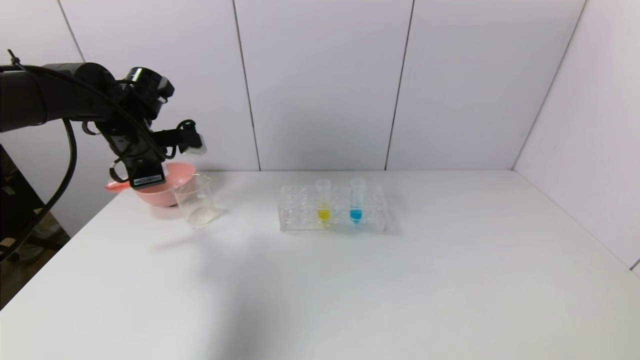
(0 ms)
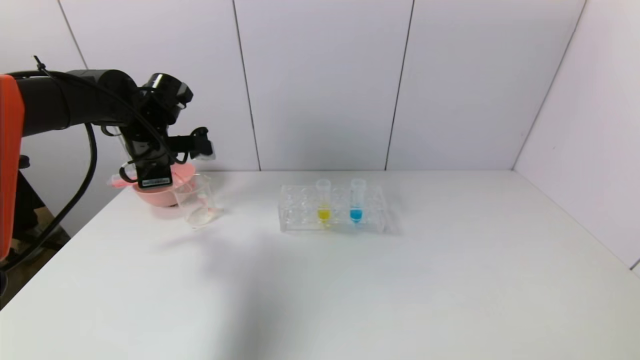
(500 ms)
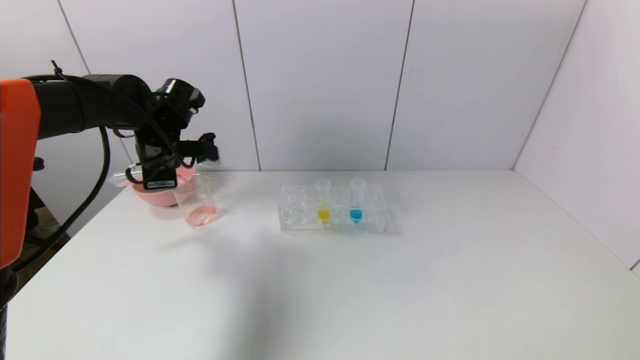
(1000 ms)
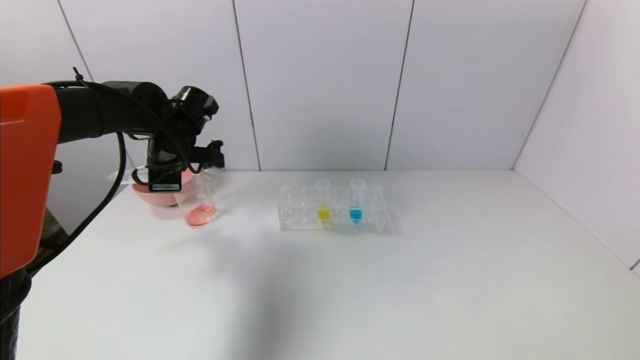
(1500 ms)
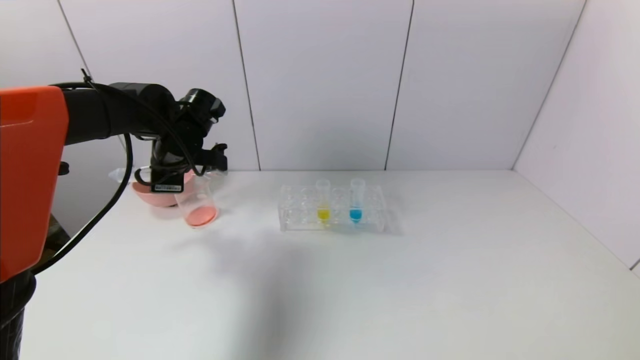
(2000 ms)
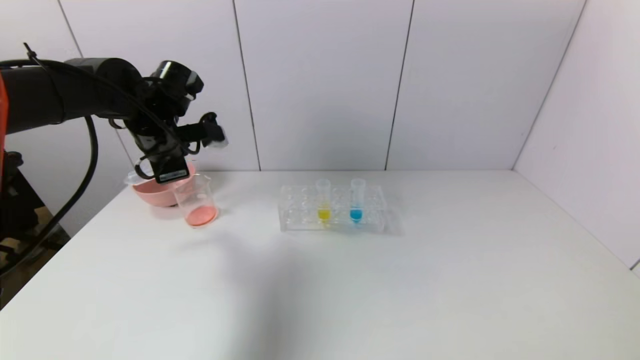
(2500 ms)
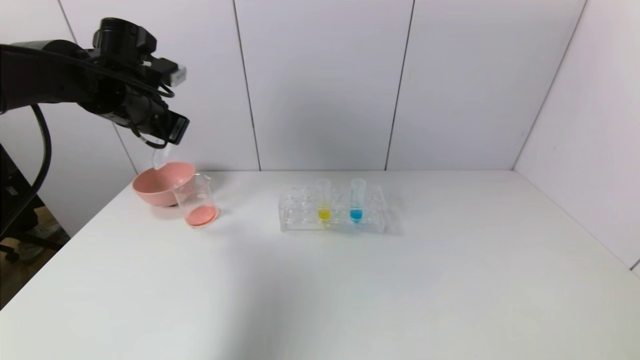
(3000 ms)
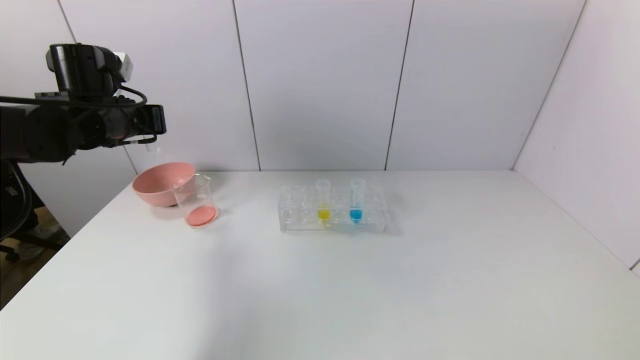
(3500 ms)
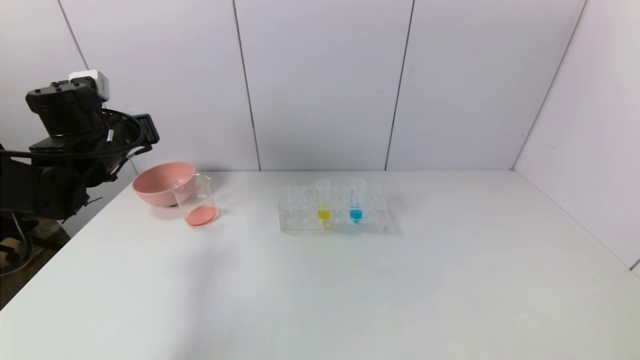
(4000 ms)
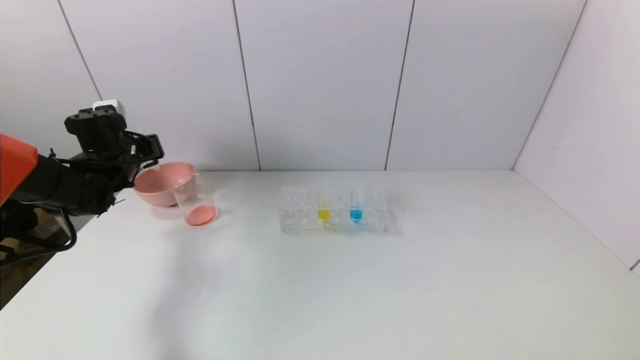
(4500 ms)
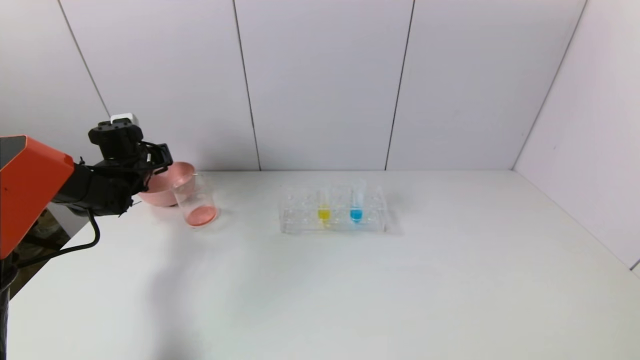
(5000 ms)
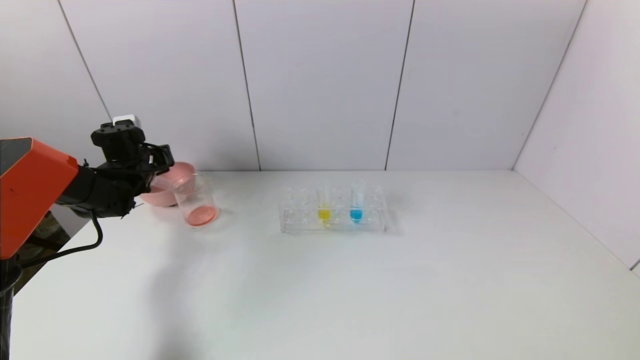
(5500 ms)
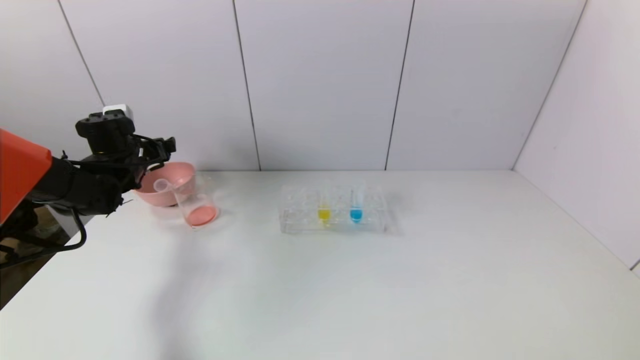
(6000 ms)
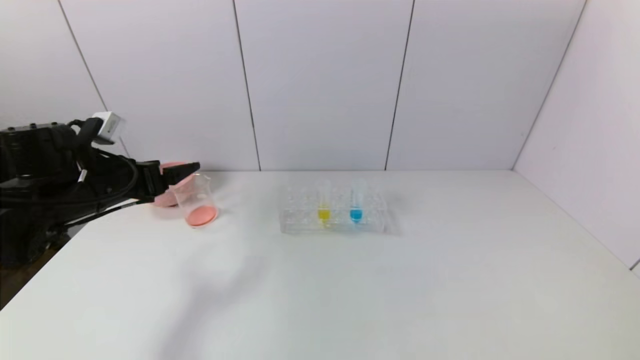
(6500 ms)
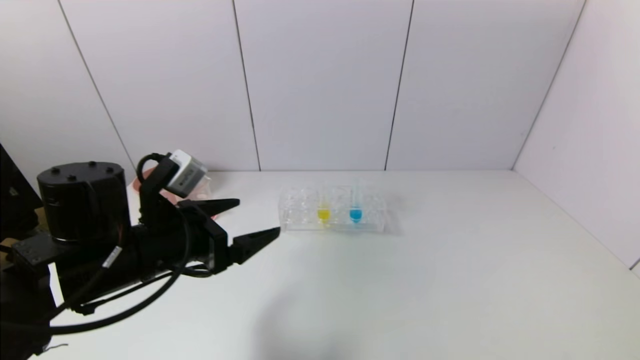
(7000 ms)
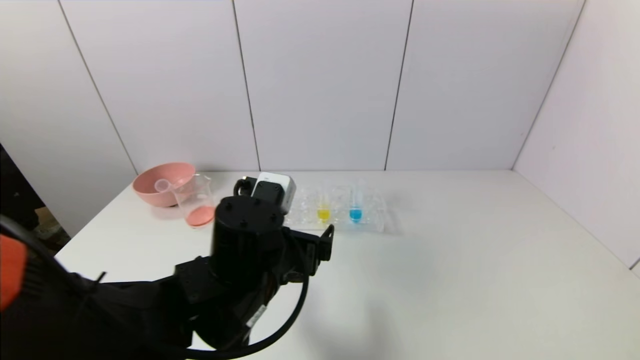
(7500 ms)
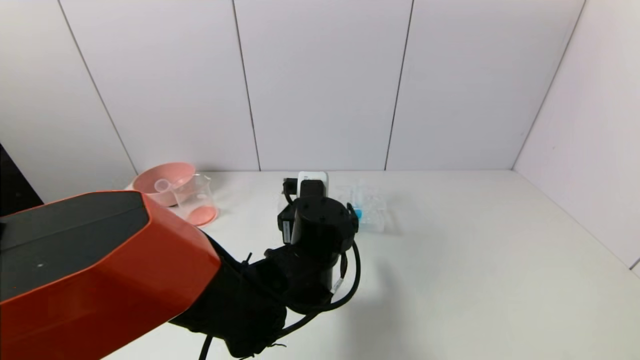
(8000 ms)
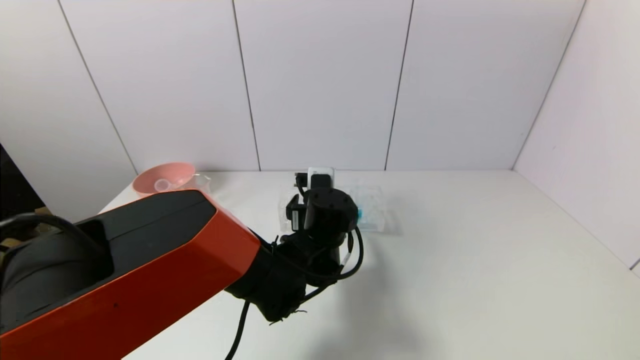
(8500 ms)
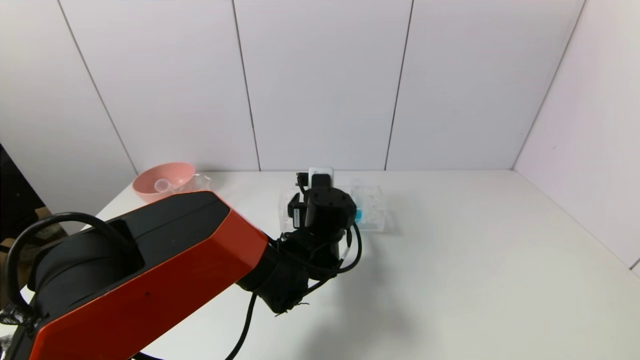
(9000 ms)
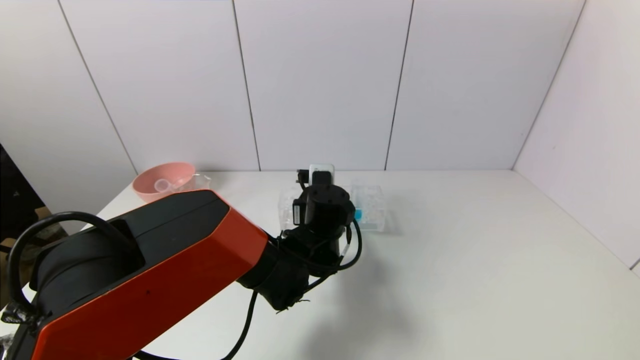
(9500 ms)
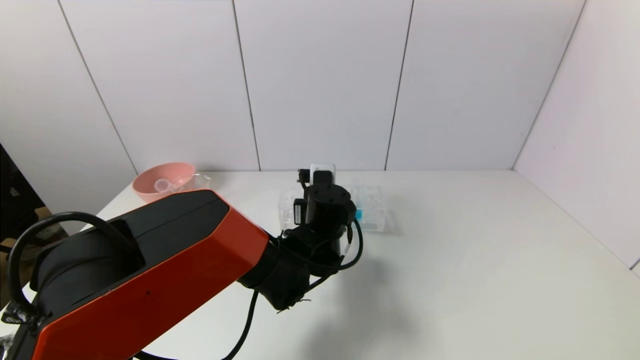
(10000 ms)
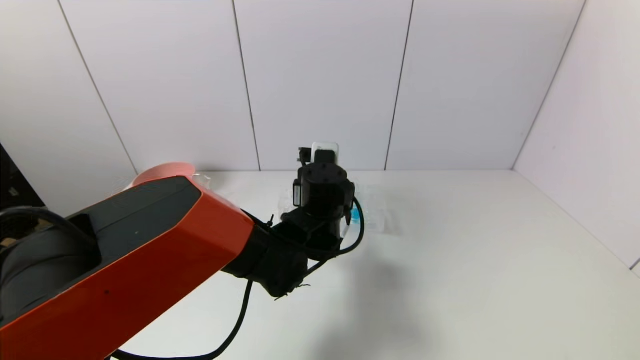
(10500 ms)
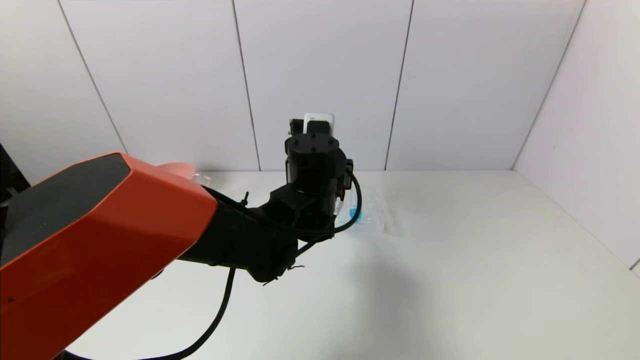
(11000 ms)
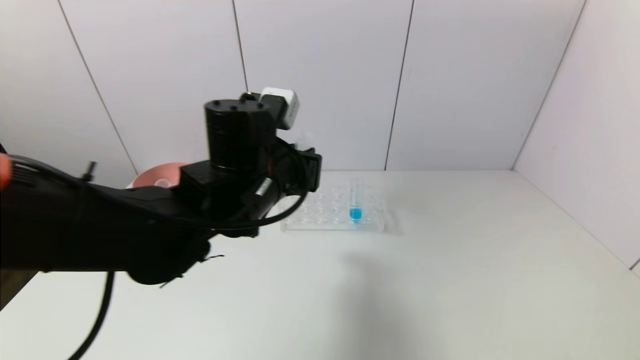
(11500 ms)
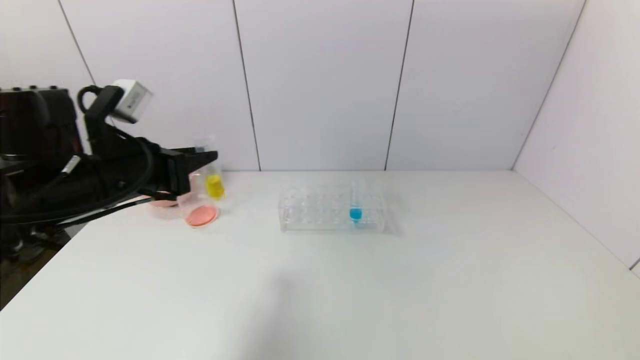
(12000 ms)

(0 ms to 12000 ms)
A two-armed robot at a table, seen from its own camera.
Task of the whole recording: pick up the test tube with yellow pigment and the test tube with red pigment by grippers and pour them into the beaker.
Step, 0 ms - 2000 ms: Pour the red reagent into the graduated cylinder with the left gripper.
Step, 2500 ms - 5500 ms: Place the test tube into the pink bowl with the left gripper.
Step, 6000 ms - 10000 ms: Grasp the yellow reagent with the left gripper.
0 ms - 2000 ms: The left gripper heads to the right, covering some 5 cm.
2000 ms - 4000 ms: The left gripper travels to the left by about 10 cm.
4000 ms - 6000 ms: The left gripper goes about 10 cm forward and downward, and opens its fingers.
6000 ms - 8000 ms: The left gripper is displaced to the right and backward by about 40 cm.
8000 ms - 10000 ms: The left gripper heads forward, covering approximately 5 cm, and closes its fingers.
10000 ms - 12000 ms: The left gripper travels to the left and upward by about 30 cm.

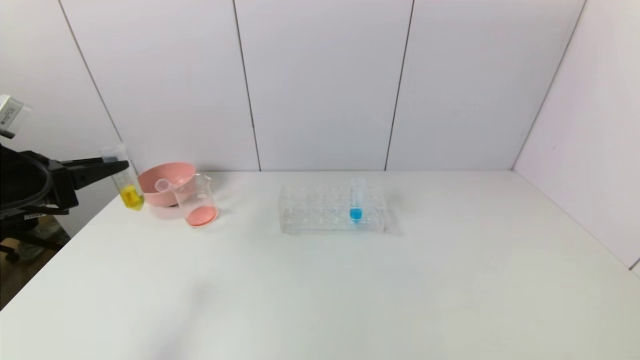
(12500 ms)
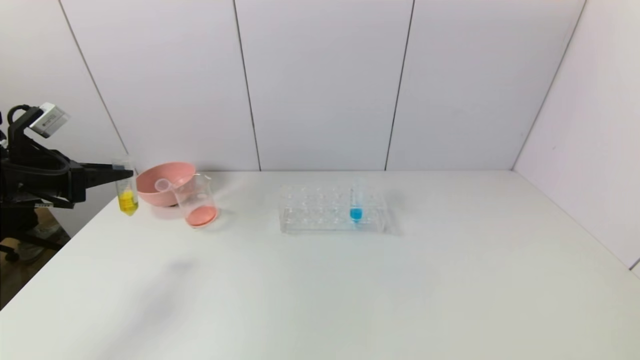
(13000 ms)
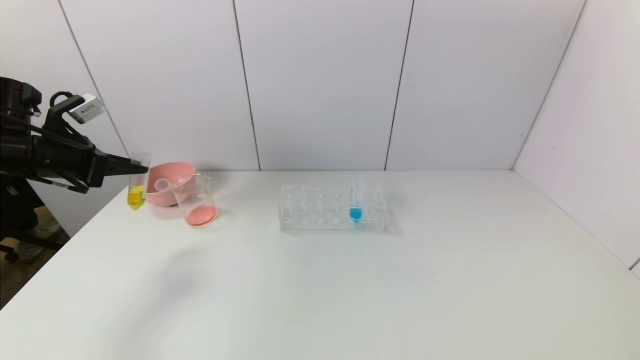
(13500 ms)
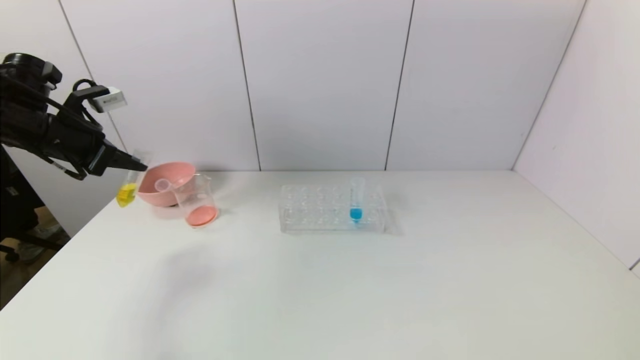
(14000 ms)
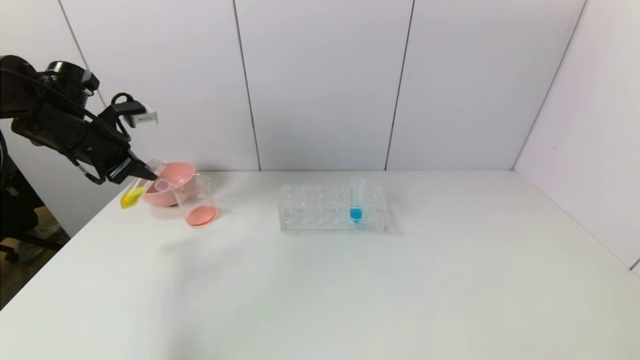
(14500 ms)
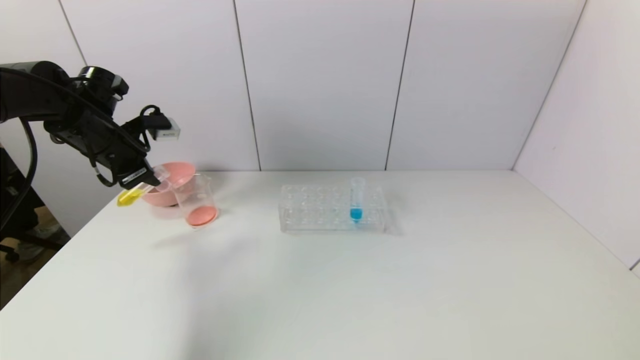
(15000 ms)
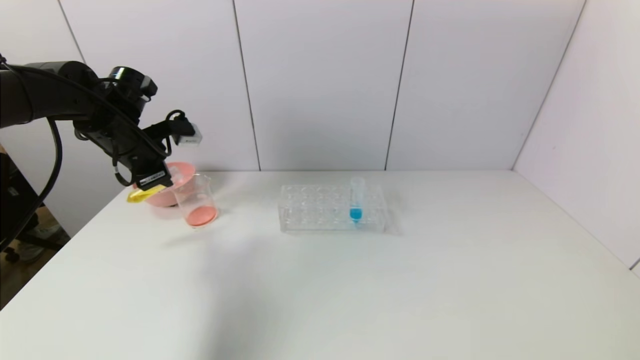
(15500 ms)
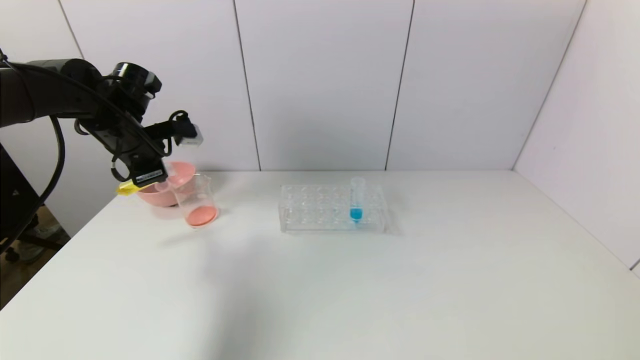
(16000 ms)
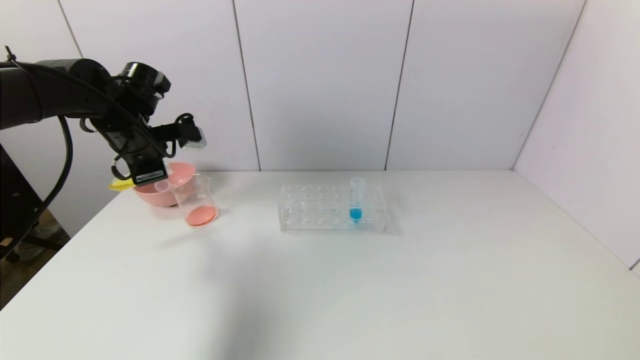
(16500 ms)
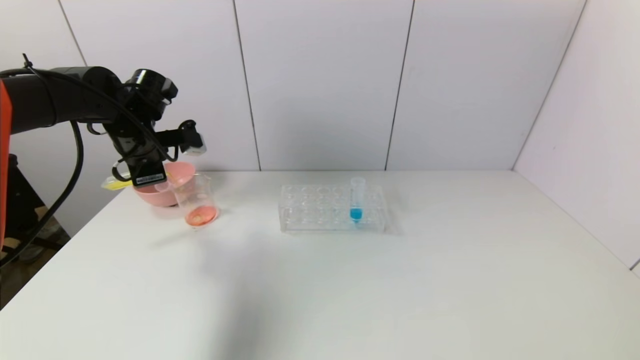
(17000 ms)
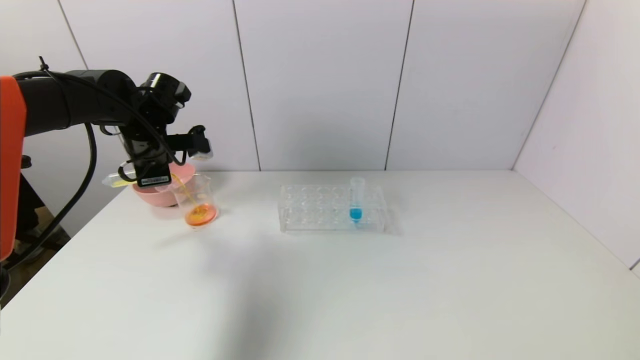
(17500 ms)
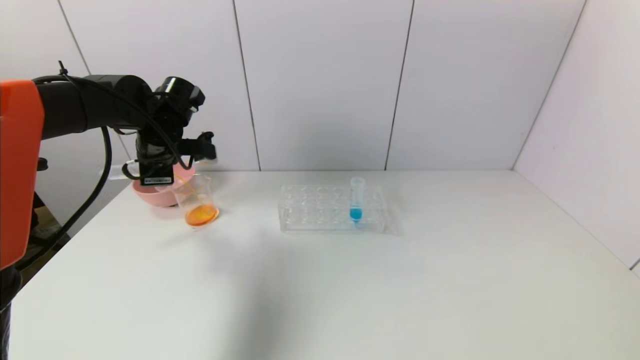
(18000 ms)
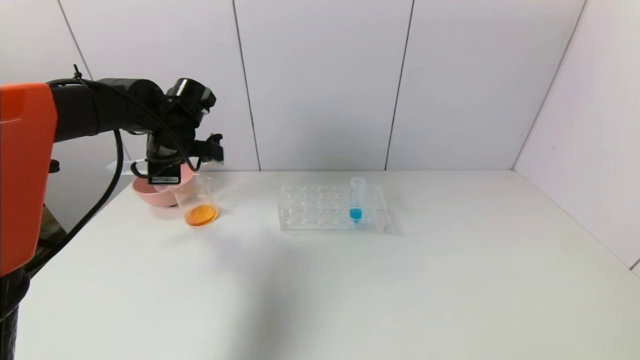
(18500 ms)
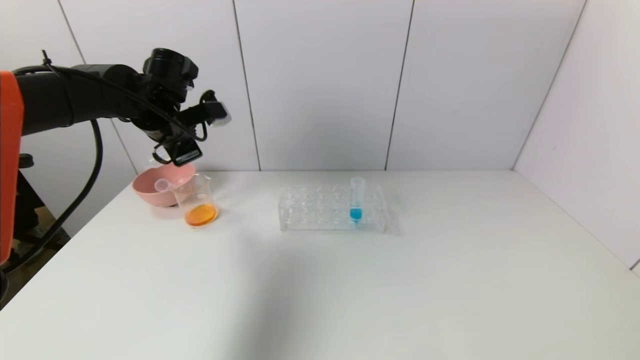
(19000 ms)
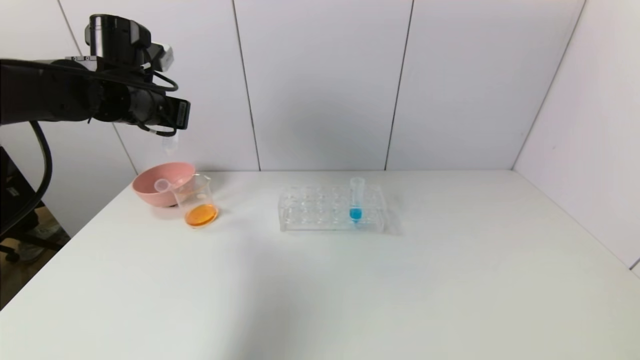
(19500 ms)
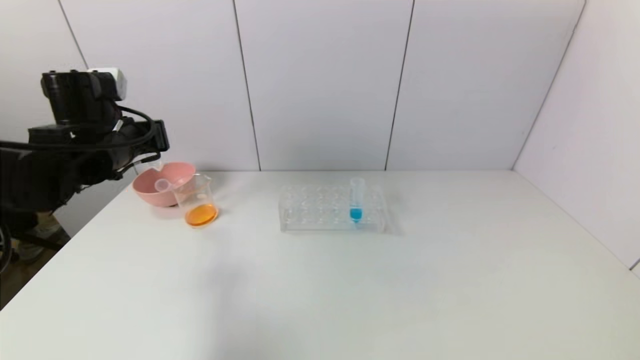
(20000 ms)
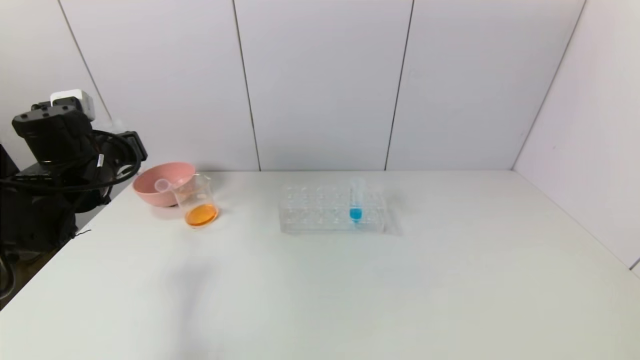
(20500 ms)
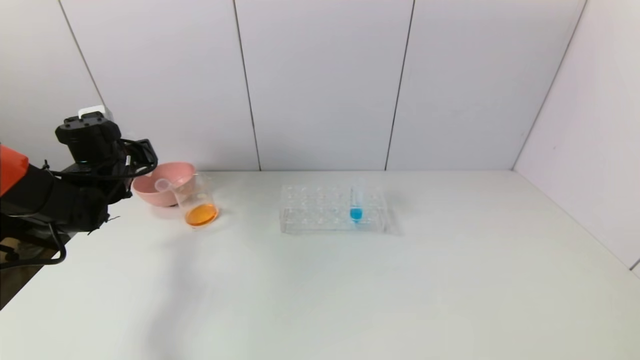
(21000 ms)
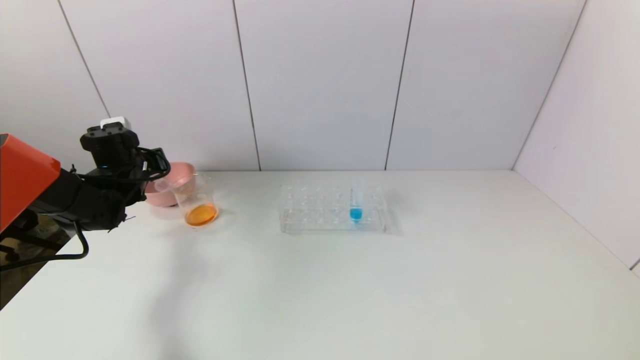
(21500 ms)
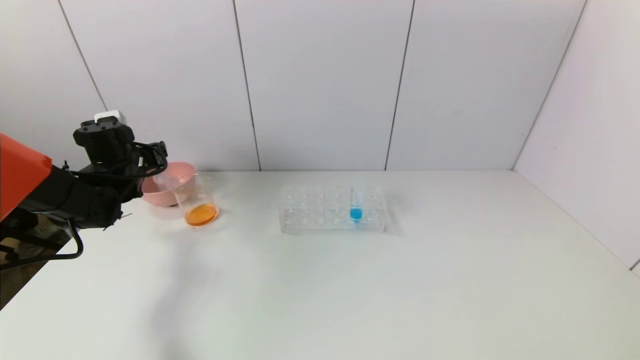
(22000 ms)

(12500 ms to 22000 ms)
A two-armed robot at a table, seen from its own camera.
Task of the whole recording: pick up the test tube with yellow pigment and the test tube with red pigment by grippers and pour them into the beaker.
Step, 12500 ms - 18500 ms: Pour the yellow reagent into the graduated cylinder with the left gripper.
Step, 19000 ms - 22000 ms: Place the test tube into the pink bowl with the left gripper.
12500 ms - 14500 ms: The left gripper is displaced forward by roughly 15 cm.
14500 ms - 16500 ms: The left gripper goes roughly 10 cm to the right.
18000 ms - 20000 ms: The left gripper heads backward, covering some 5 cm.
20000 ms - 22000 ms: The left gripper shifts approximately 15 cm downward, forward and to the left, and opens.
